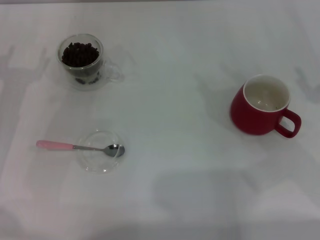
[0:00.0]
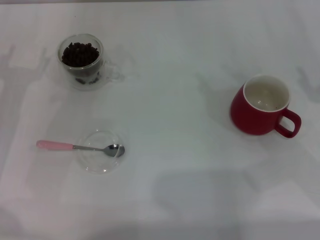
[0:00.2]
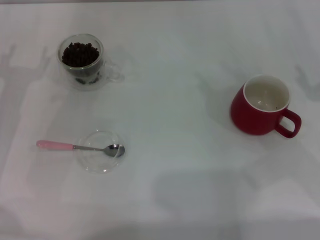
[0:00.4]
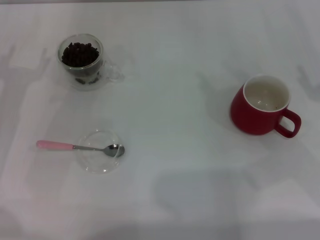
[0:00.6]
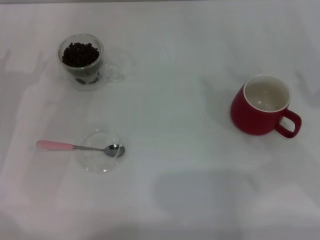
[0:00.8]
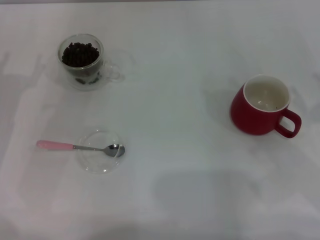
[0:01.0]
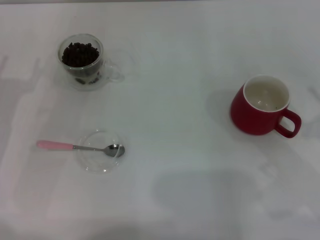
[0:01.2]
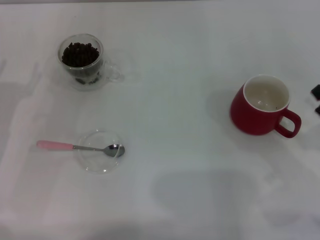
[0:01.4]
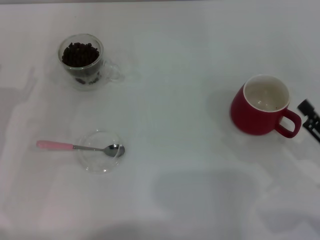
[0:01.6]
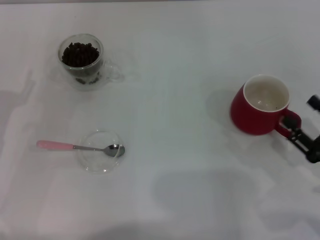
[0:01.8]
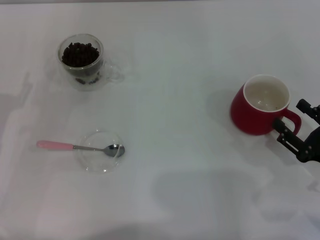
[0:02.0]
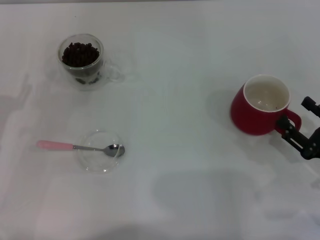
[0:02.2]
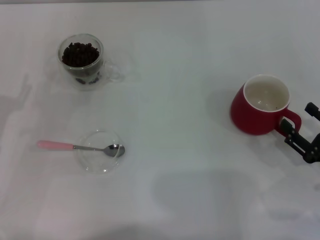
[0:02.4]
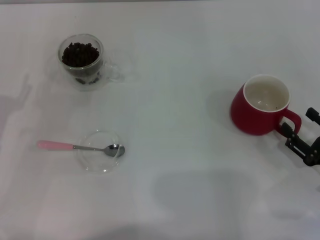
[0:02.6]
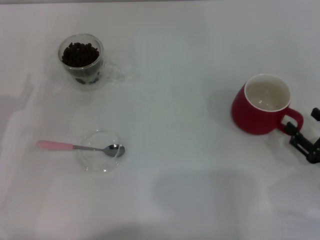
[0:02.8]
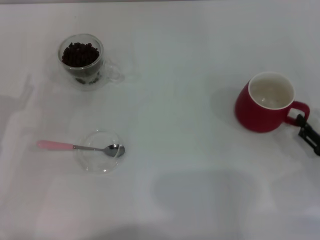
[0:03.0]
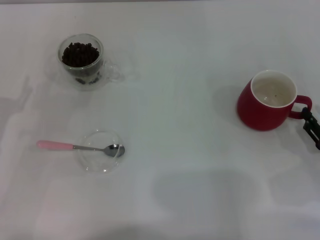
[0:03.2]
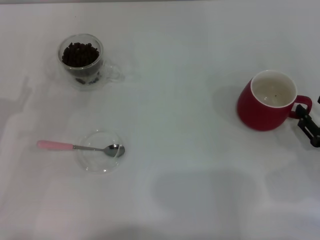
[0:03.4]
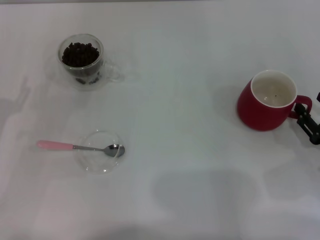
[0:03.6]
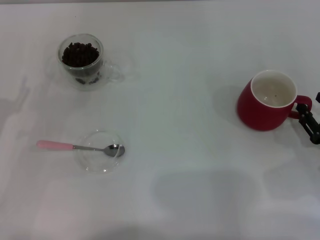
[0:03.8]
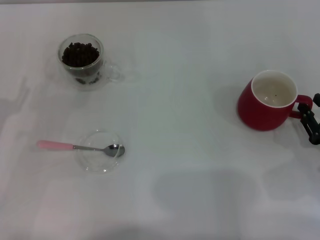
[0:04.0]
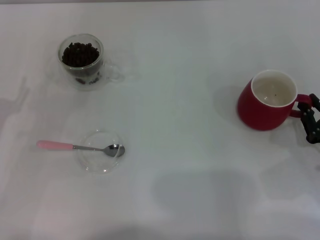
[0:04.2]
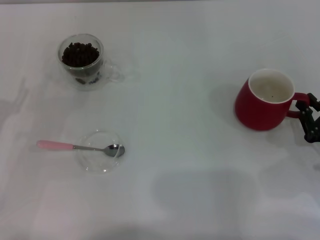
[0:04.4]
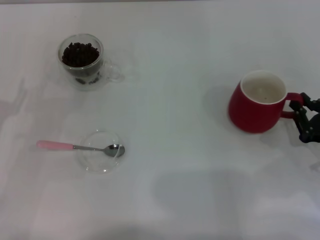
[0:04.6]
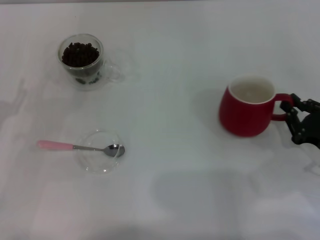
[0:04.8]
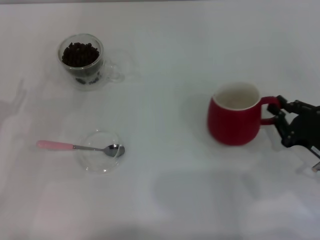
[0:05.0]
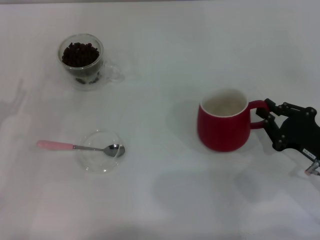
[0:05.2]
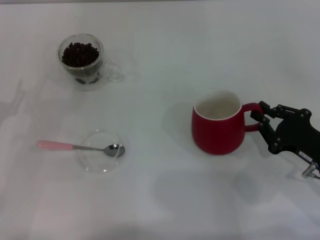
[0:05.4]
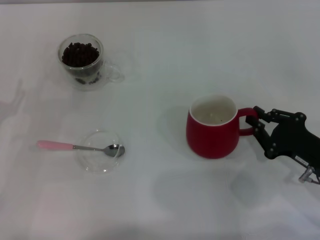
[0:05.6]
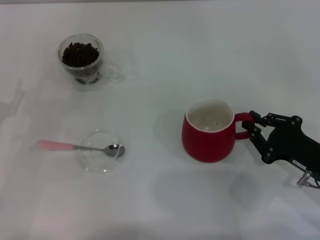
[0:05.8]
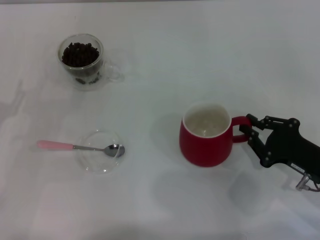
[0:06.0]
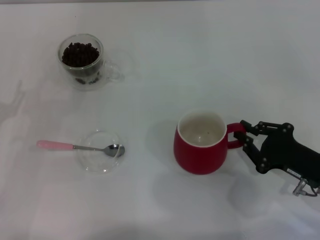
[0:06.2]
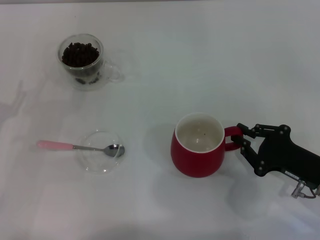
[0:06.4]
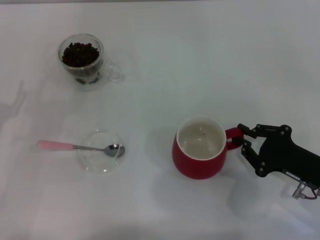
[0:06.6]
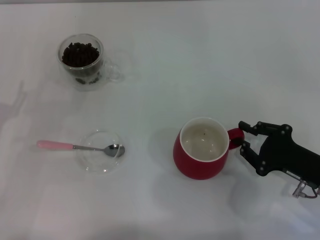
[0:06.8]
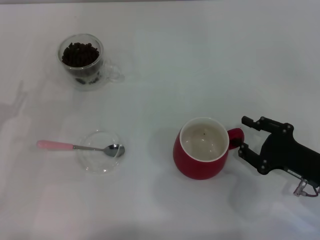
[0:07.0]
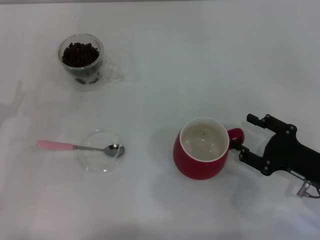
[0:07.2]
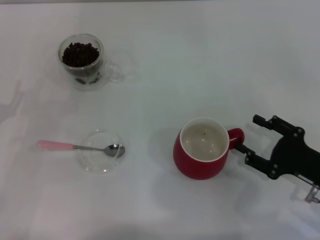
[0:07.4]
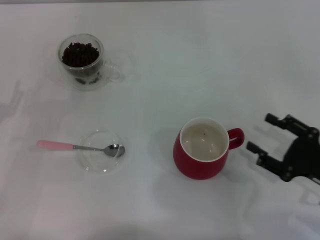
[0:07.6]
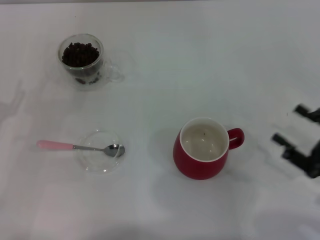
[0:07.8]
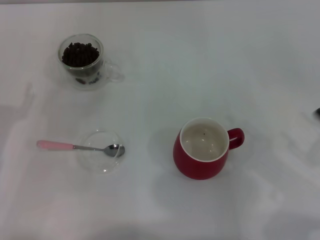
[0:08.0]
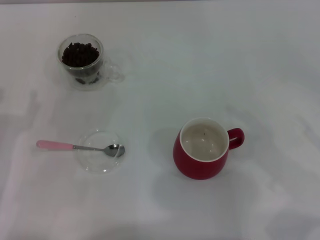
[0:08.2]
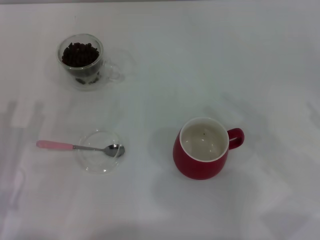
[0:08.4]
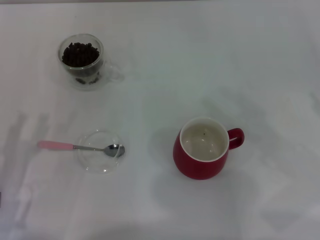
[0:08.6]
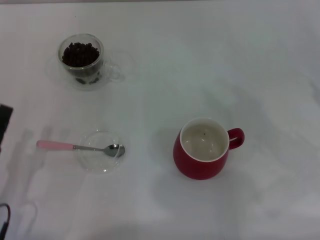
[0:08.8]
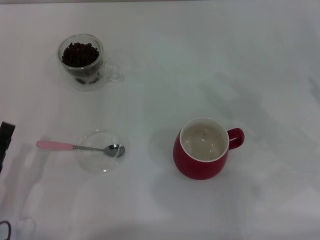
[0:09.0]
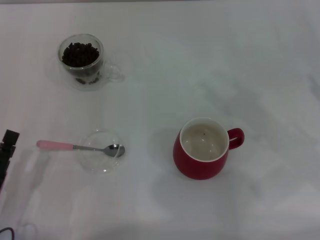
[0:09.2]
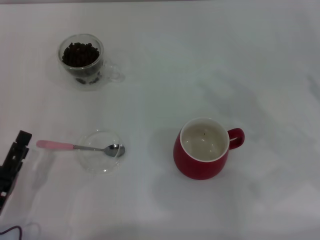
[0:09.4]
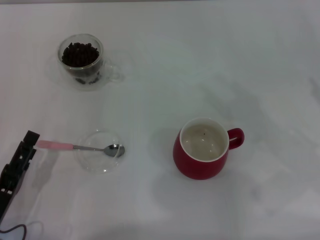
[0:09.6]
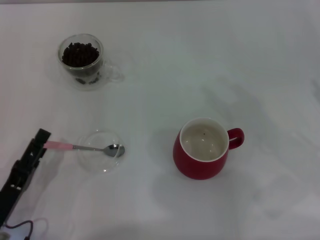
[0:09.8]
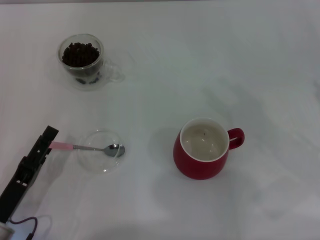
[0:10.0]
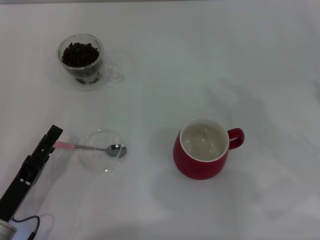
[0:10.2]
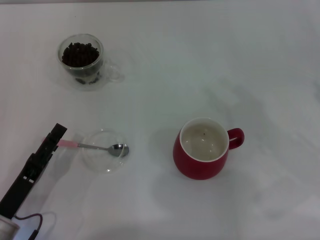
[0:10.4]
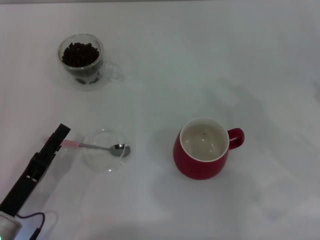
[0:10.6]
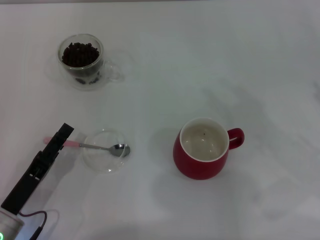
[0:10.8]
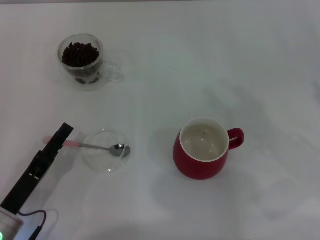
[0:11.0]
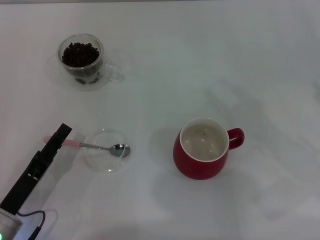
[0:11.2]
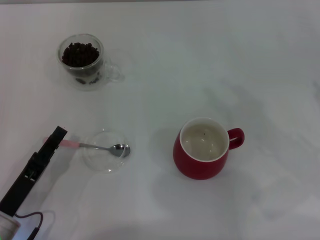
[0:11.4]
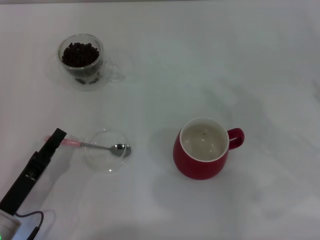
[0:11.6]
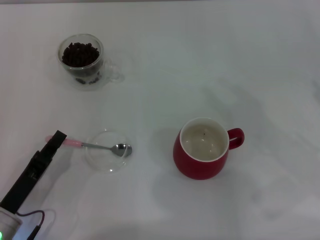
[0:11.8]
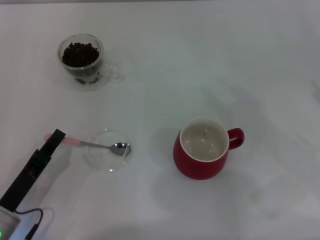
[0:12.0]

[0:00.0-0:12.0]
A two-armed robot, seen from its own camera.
Task of the whole recording: Use a pink spoon to take out the coffee beans from the glass and pour them into the red cup.
Step, 0:00.0 to 0:07.4: Move the cup to the center of view with the left gripper.
0:00.0 to 0:01.6: The right gripper moves backward and downward, about 10 cm.
0:03.0 to 0:04.4: The right gripper closes its fingers.
0:06.0 to 0:07.6: The right gripper opens up.
0:07.6 to 0:09.0: The left gripper shifts approximately 15 cm backward and to the right. Meanwhile the right gripper is displaced upward and to the right by approximately 10 cm.
0:09.0 to 0:10.4: The grippers make only small movements.
0:10.4 to 0:12.0: The left gripper closes.

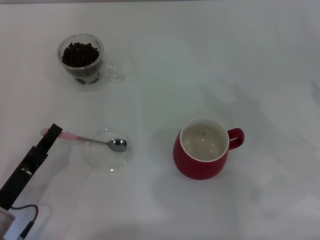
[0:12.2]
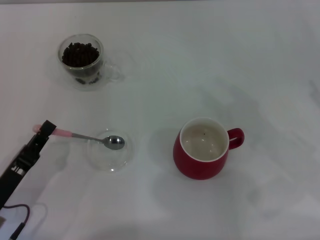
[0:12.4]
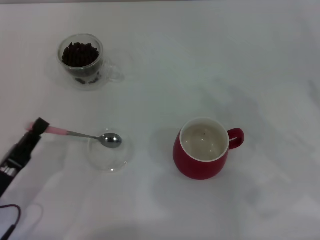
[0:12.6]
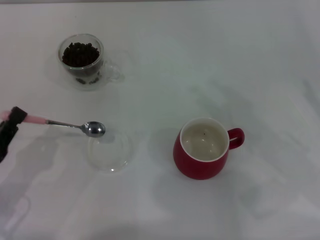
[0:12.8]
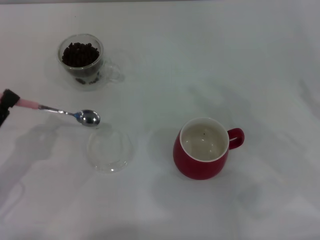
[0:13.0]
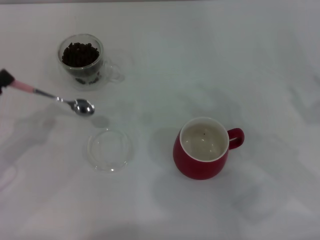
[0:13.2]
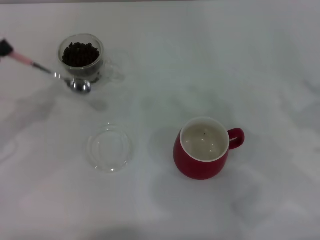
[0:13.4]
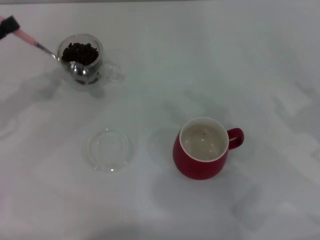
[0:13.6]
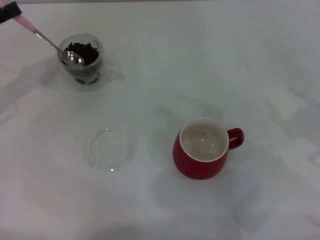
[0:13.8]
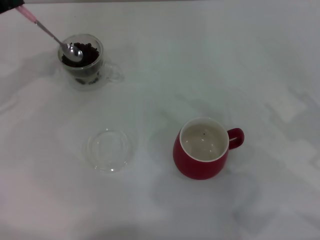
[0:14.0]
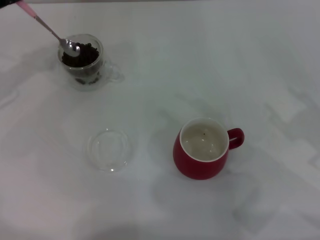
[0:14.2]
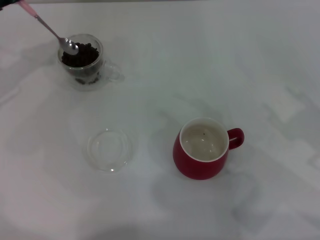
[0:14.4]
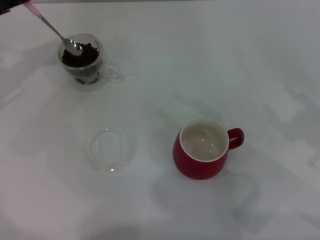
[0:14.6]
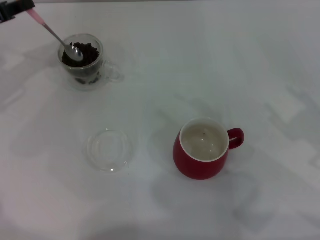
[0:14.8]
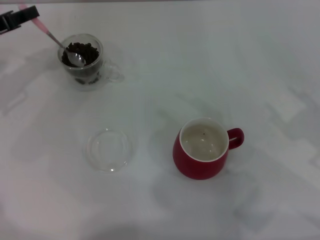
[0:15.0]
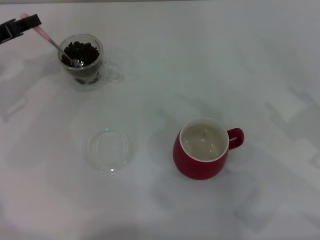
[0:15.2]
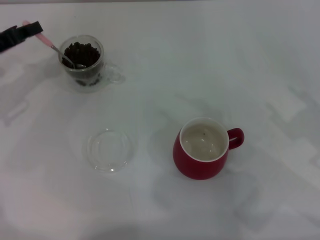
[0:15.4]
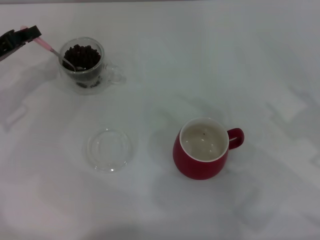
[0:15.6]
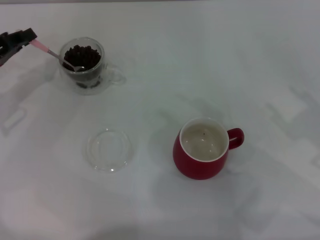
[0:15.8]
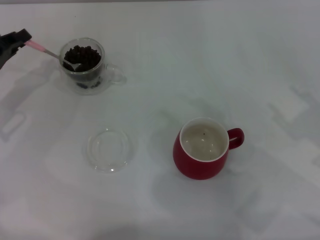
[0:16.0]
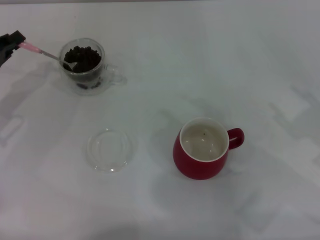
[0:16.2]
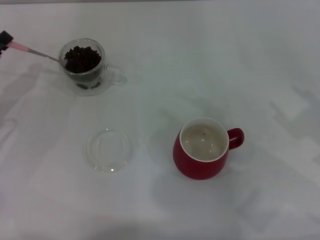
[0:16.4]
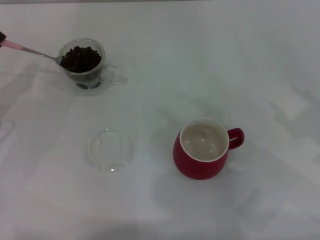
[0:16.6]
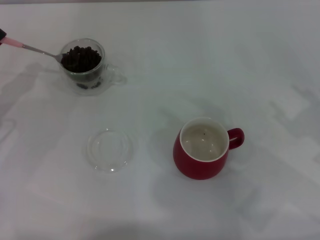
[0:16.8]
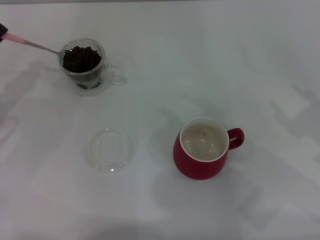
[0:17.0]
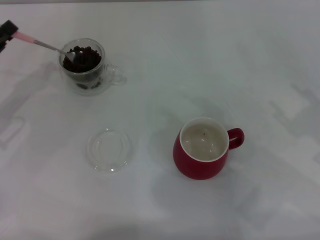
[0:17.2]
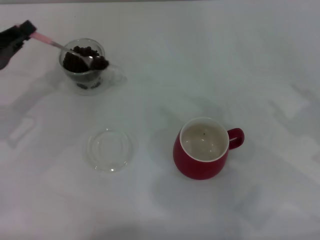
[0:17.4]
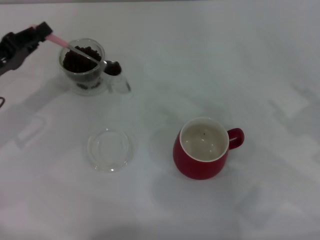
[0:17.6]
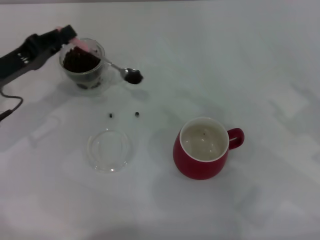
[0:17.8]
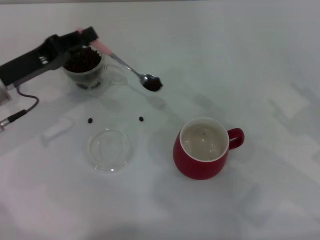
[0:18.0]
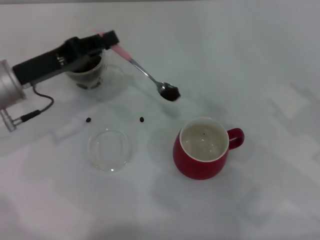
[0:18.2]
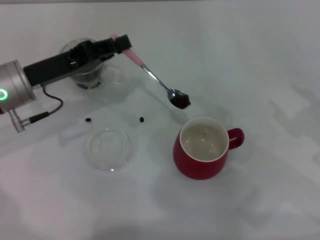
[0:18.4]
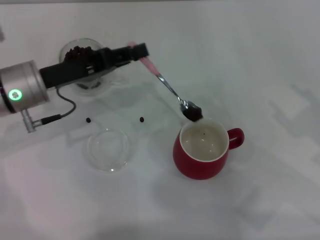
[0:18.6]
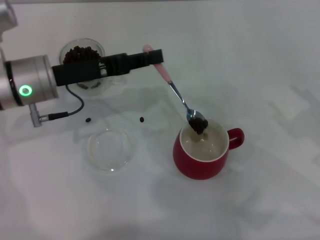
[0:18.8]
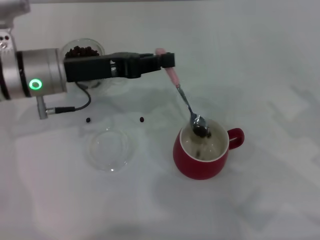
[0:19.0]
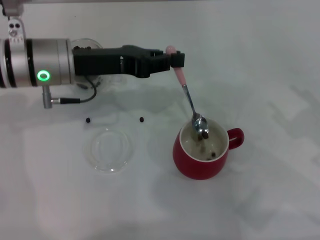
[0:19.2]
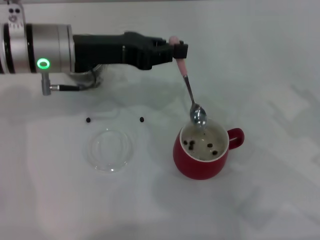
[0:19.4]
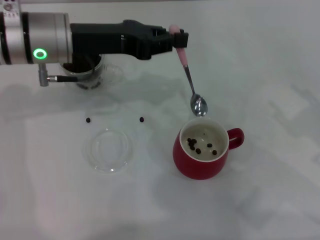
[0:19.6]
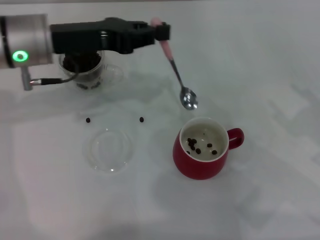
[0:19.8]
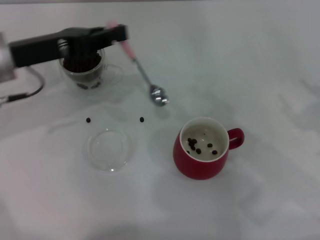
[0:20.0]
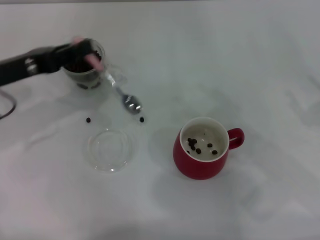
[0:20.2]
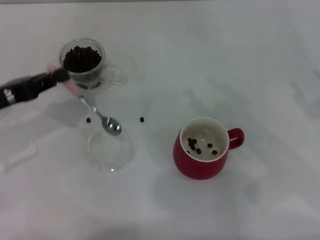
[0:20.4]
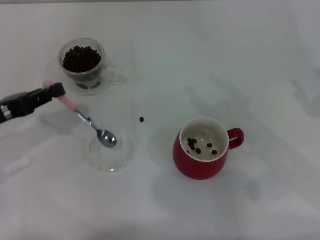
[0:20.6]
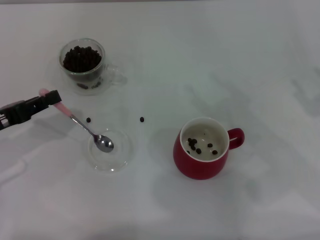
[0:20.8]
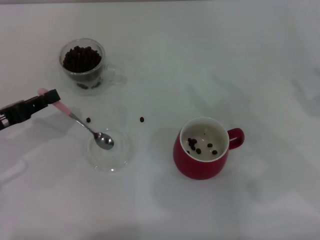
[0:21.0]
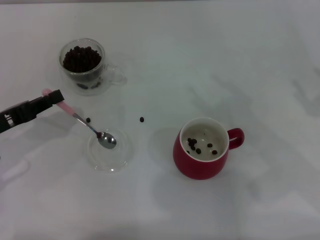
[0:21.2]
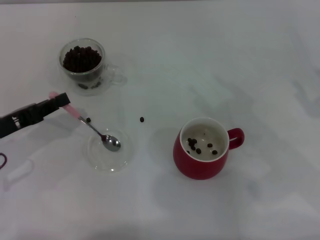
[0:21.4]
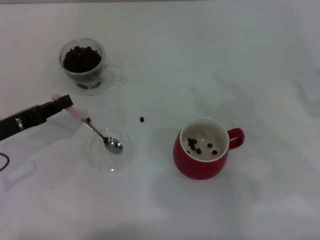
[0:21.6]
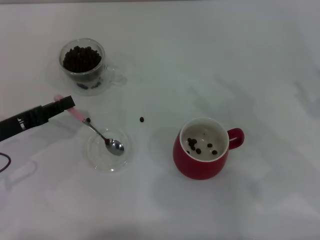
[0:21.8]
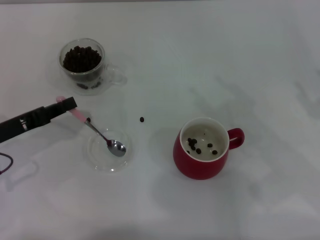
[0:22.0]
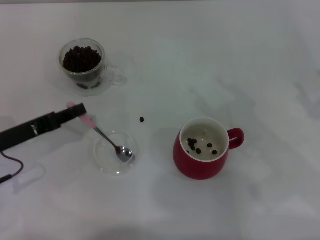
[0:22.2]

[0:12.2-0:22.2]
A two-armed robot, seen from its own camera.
Task of the whole recording: Use a pink spoon to take out the coffee beans from the glass and pour them into the red cup.
0:12.2 to 0:13.6: The left gripper goes about 20 cm forward, upward and to the left.
0:13.6 to 0:15.0: The left gripper shifts some 5 cm forward.
0:15.0 to 0:16.4: The left gripper is displaced backward by about 5 cm.
0:16.4 to 0:18.0: The left gripper is displaced to the right by some 10 cm.
0:18.0 to 0:19.4: The left gripper goes some 10 cm to the right and upward.
0:19.4 to 0:20.8: The left gripper shifts roughly 20 cm to the left, backward and downward.
0:20.8 to 0:22.2: The grippers make only small movements.
